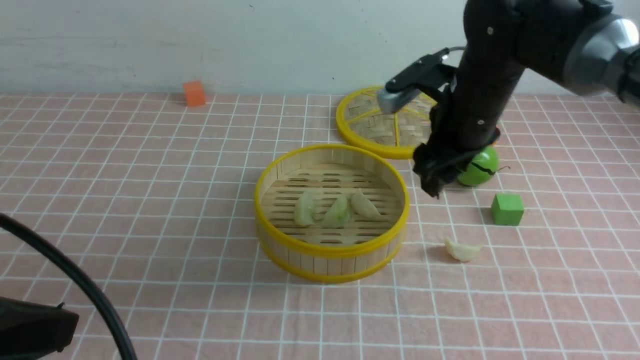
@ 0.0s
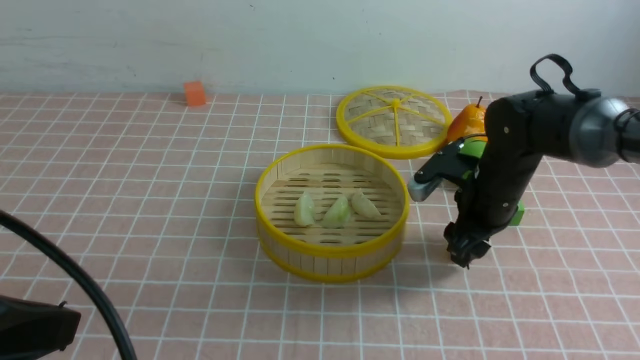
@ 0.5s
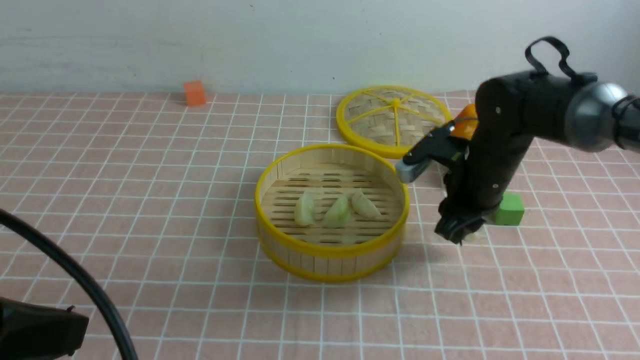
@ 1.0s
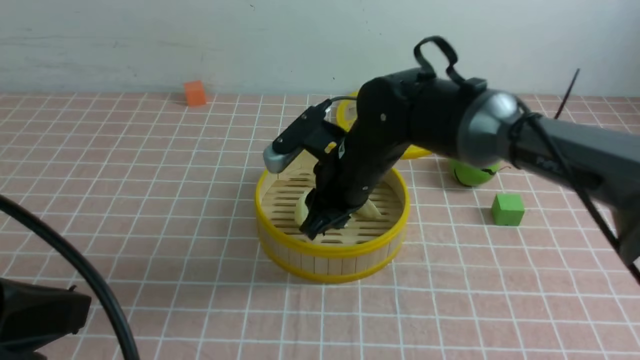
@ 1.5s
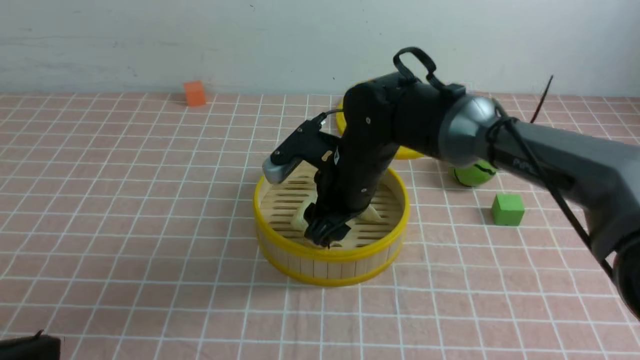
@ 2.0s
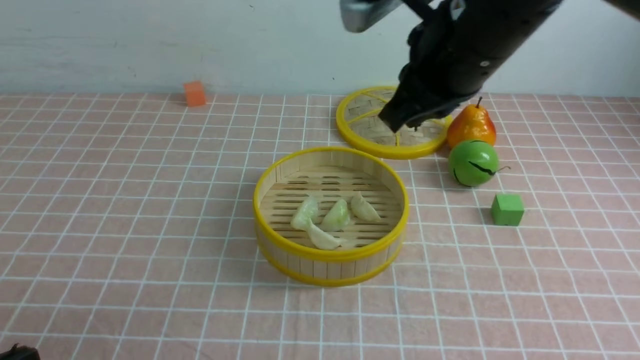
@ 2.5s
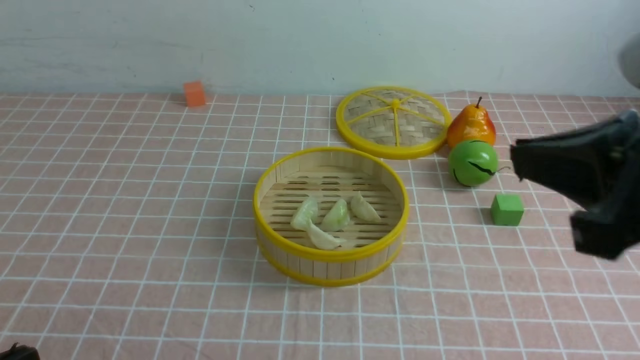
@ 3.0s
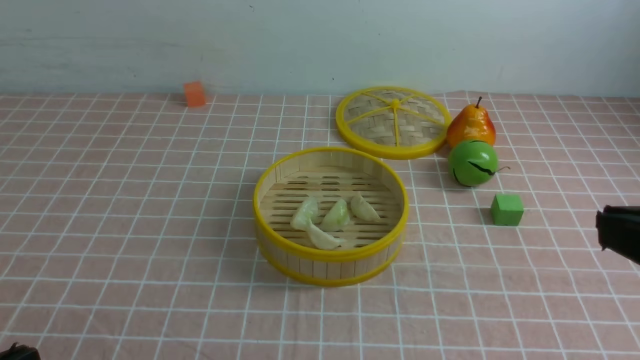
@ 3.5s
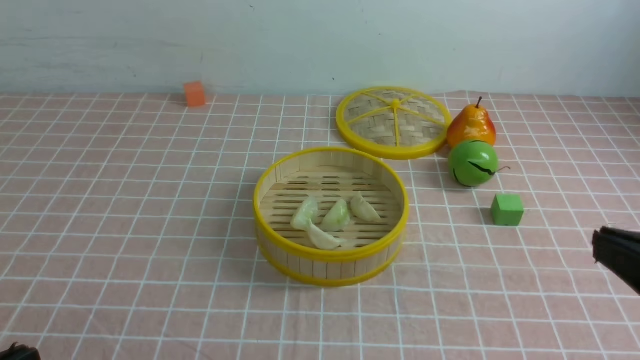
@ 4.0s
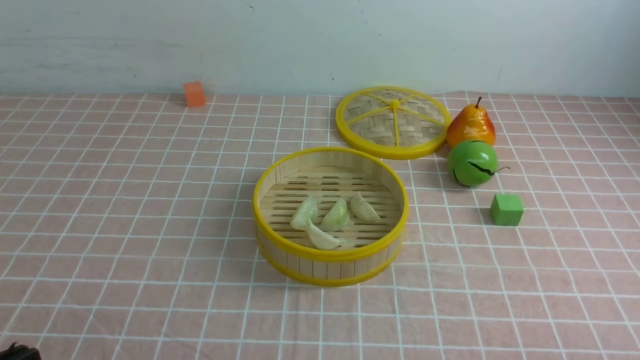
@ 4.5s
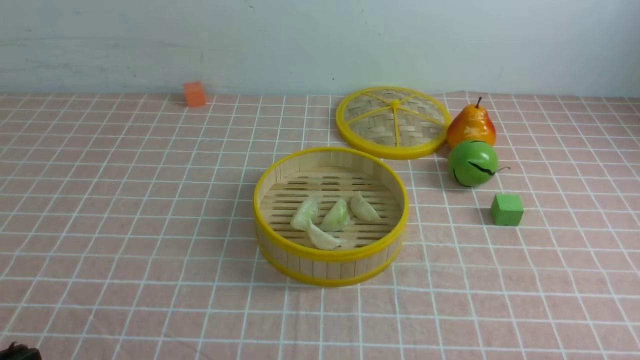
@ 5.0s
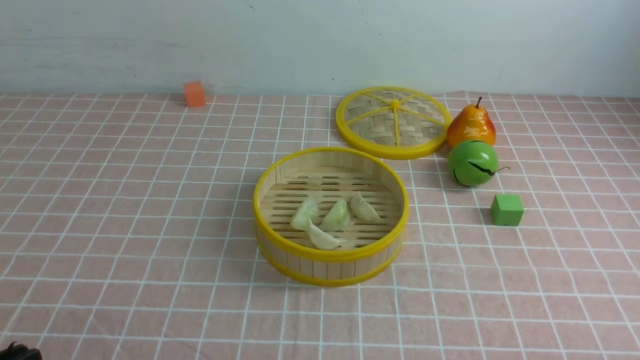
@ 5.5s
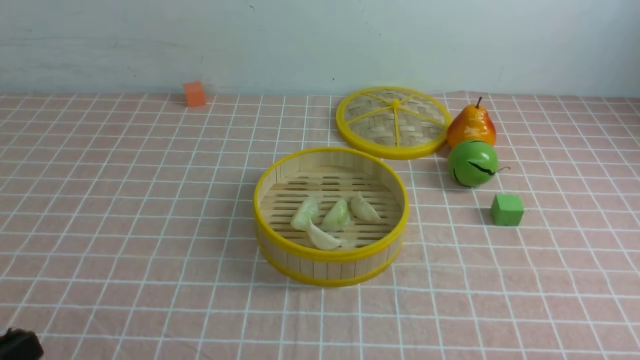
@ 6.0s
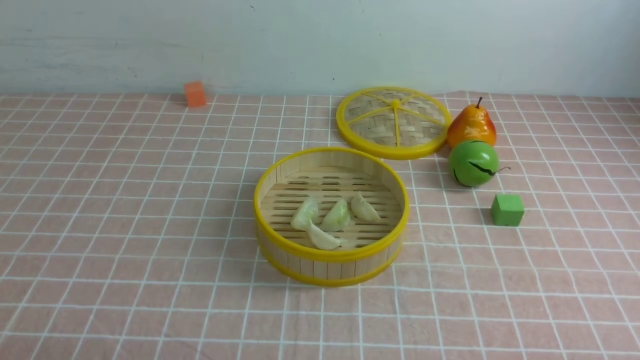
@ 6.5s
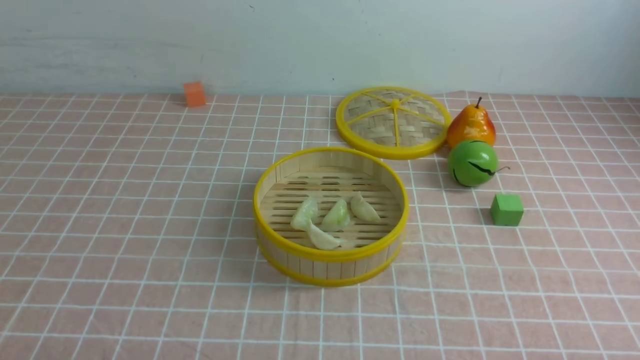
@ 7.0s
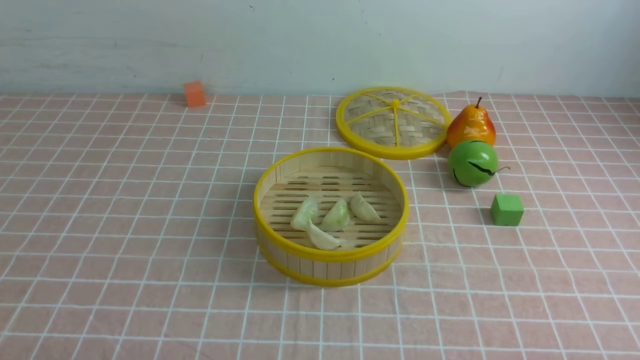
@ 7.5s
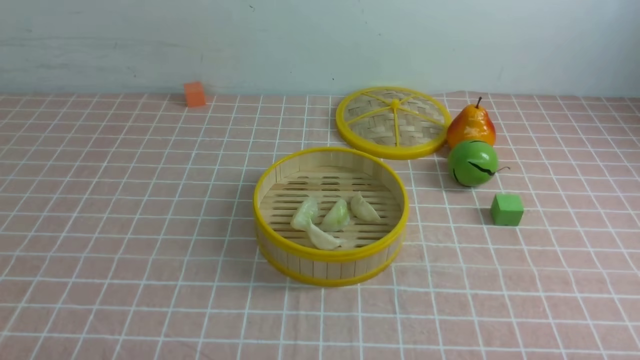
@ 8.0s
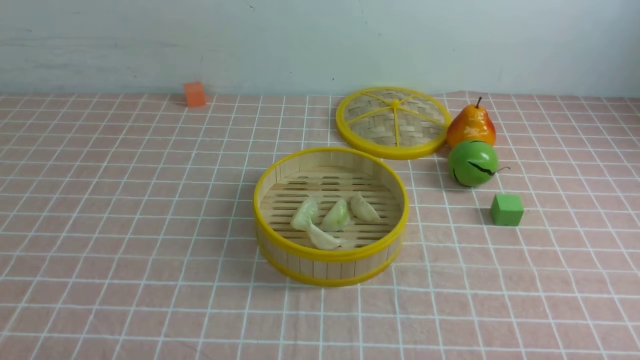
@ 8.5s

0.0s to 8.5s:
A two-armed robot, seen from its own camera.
Task of the whole recording: put the dumplings into the steamer on the table with the pink tablecloth.
Step, 1.5s to 2.0s: use the right arm to put the dumpling into the steamer.
0.0s to 2.0s: The right gripper goes about 10 cm to the left.
2.0s to 4.0s: The left gripper is displaced downward by about 5 cm, while the right gripper is displaced backward and to the right by roughly 35 cm, and closes.
4.0s to 6.5s: The right gripper shifts approximately 15 cm downward.
